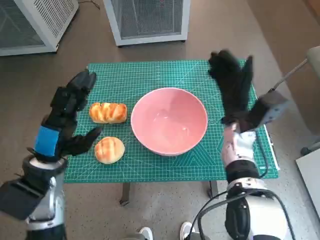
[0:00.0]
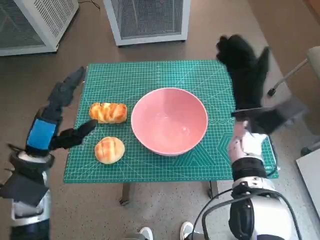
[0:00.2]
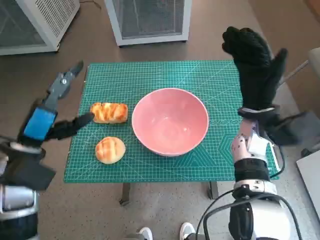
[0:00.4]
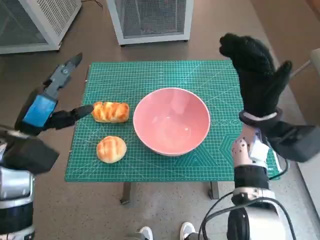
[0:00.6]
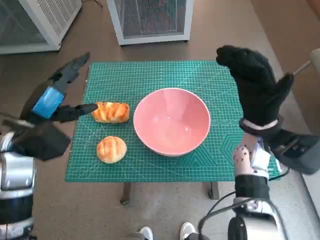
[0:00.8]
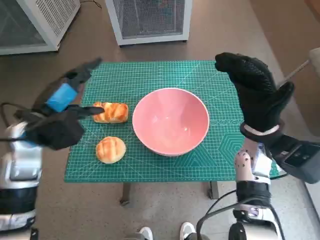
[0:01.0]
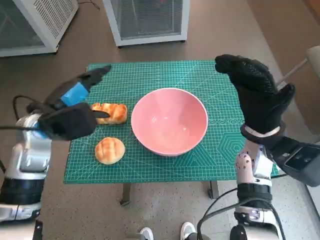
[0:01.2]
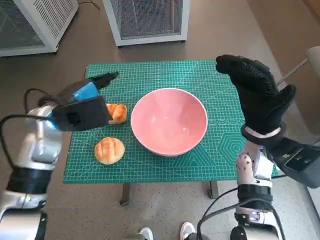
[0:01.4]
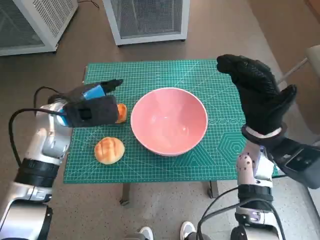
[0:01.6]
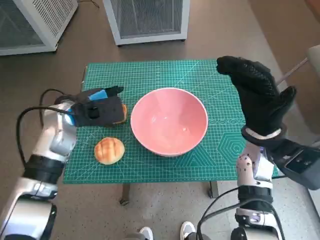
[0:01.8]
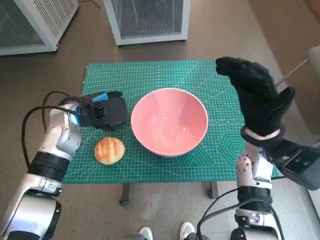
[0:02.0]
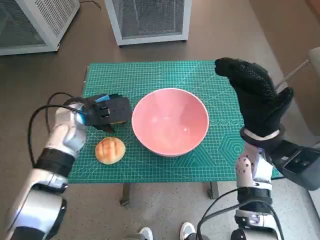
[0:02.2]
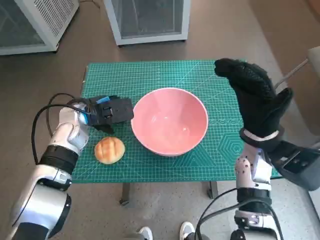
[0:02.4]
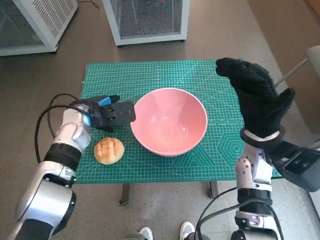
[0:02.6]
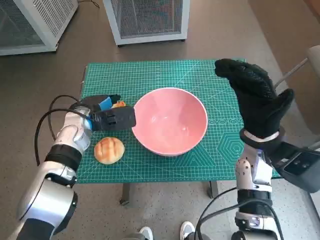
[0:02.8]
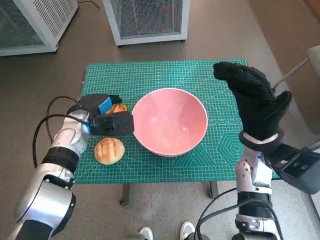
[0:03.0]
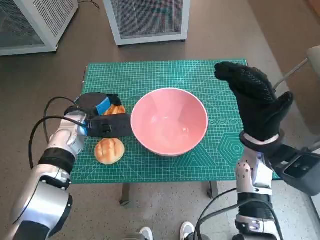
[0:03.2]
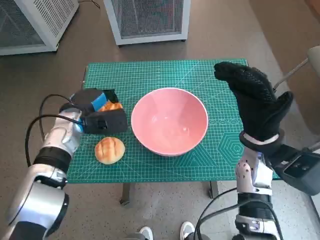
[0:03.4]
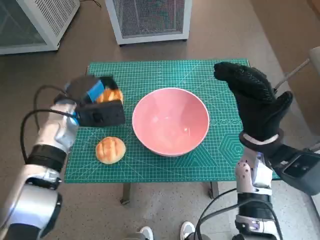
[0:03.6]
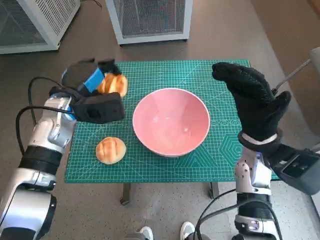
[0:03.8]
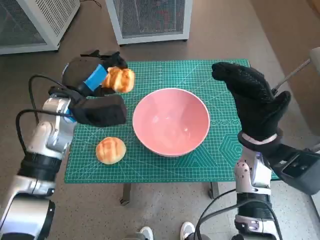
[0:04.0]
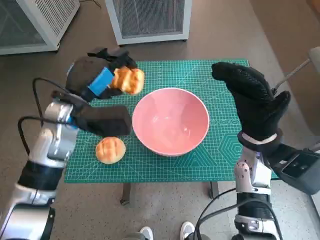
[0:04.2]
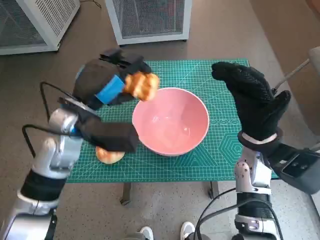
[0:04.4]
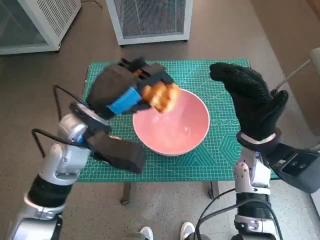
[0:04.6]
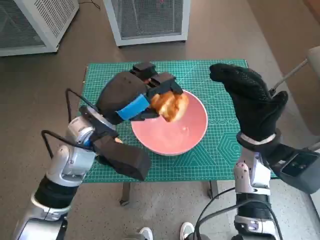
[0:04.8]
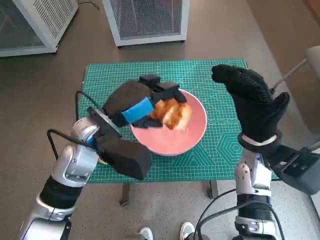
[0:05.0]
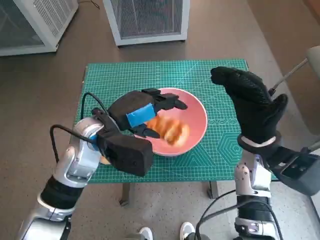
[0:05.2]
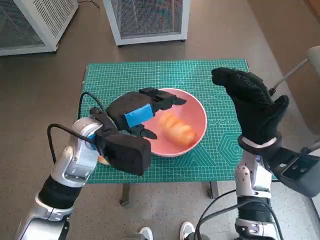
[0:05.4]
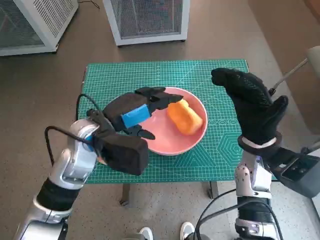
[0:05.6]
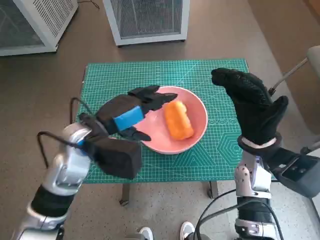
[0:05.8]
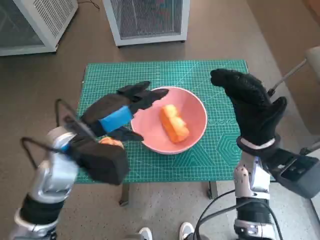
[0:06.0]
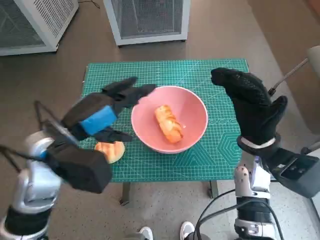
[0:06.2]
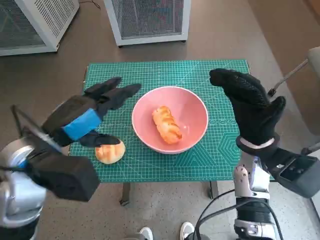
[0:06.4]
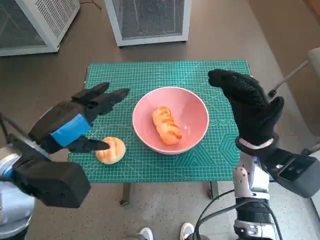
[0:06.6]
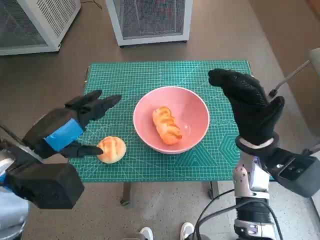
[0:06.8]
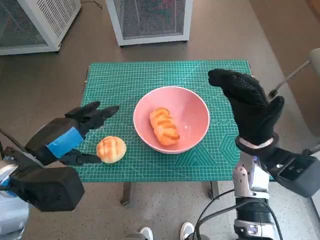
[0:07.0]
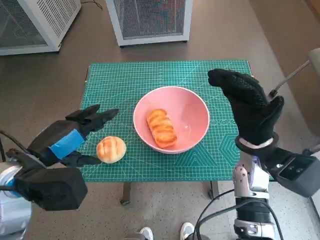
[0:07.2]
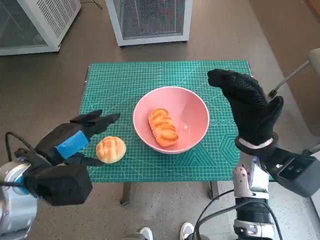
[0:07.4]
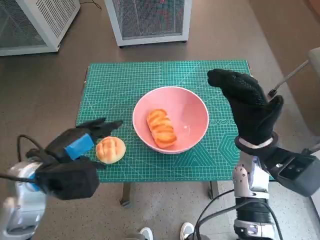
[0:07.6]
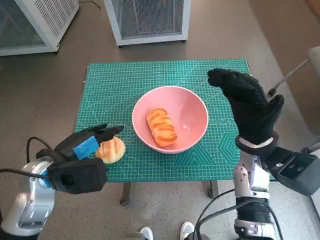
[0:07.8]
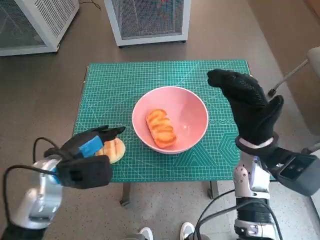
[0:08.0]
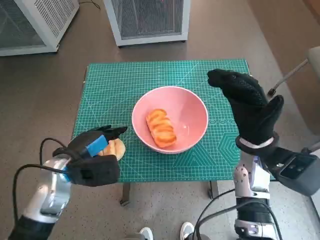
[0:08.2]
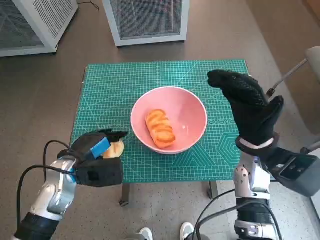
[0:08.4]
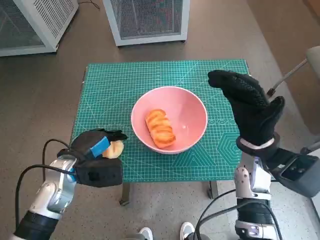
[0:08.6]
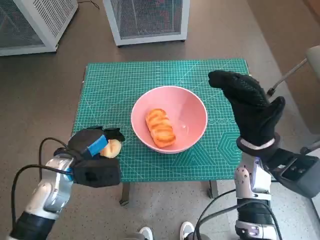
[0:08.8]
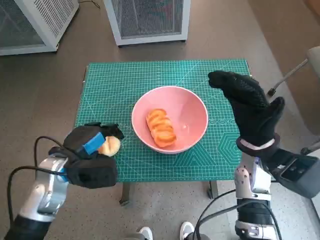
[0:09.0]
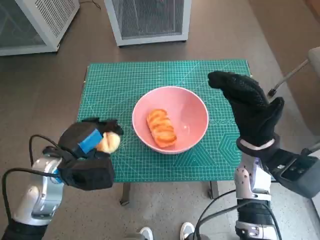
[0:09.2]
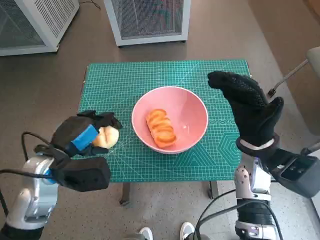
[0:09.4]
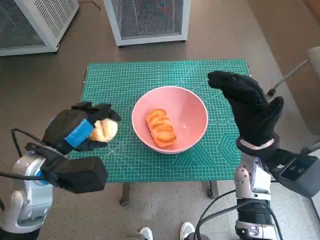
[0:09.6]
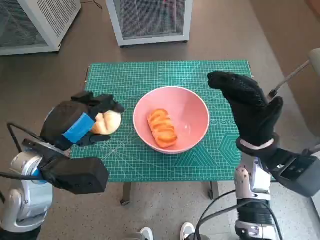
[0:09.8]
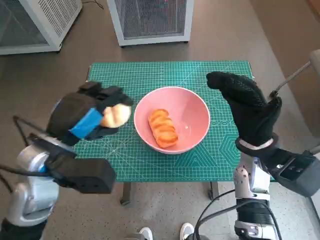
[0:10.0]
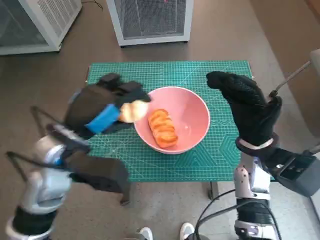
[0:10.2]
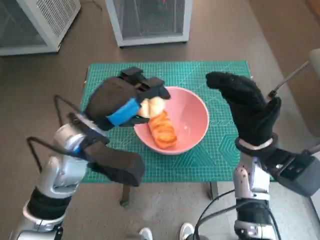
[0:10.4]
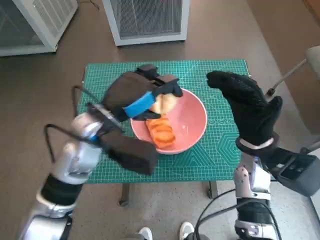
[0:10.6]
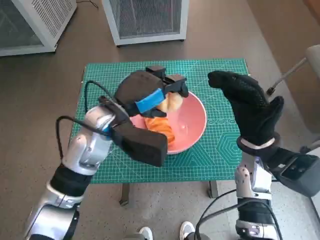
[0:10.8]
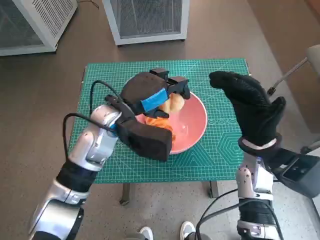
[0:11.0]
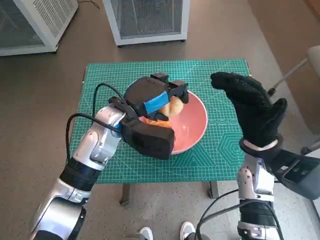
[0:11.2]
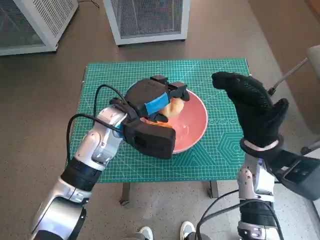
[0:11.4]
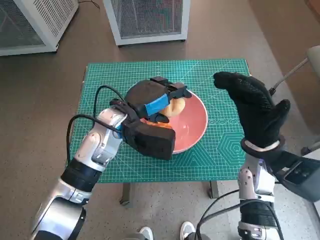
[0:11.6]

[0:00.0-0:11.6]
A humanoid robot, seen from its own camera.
Task of the whole recording: Push the bowl into the center of the table and put the bread into the bowl.
Step, 0:00.0 to 0:03.0: Grasp the long bread with left hand.
Step, 0:03.2 to 0:05.2: Place the long bread in pink bowl with left hand.
Step, 0:05.4 to 0:08.4: Grasp the round bread with left hand.
0:00.0 to 0:01.4: The right hand ends up approximately 5 cm from where it was; the left hand goes approximately 10 cm forward and upward.
0:01.4 to 0:02.8: The left hand shifts roughly 5 cm downward.
0:02.8 to 0:04.4: The left hand is displaced upward and backward by approximately 10 cm.
0:05.8 to 0:07.2: The left hand is displaced to the left and backward by some 10 cm.
0:07.2 to 0:08.8: The left hand shifts roughly 10 cm downward and forward.
0:08.8 to 0:10.2: The left hand is displaced upward by roughly 10 cm.
0:10.2 to 0:11.6: The left hand moves forward and to the right, some 10 cm.

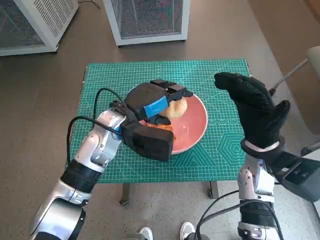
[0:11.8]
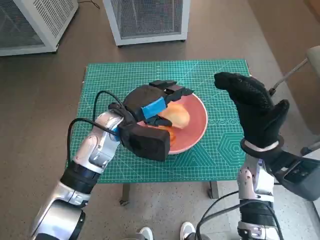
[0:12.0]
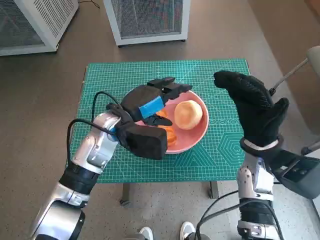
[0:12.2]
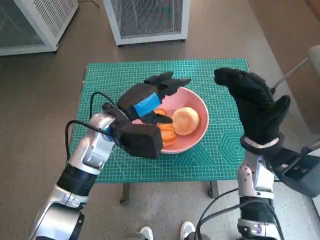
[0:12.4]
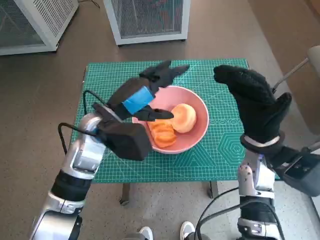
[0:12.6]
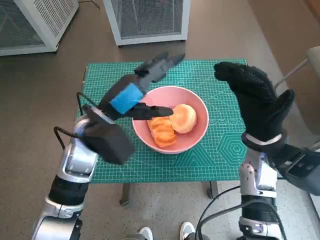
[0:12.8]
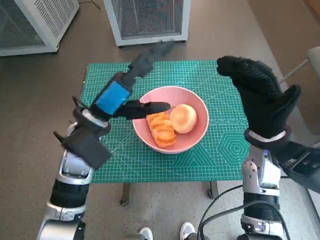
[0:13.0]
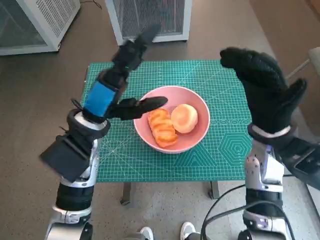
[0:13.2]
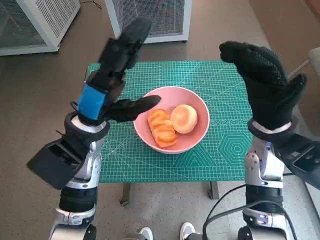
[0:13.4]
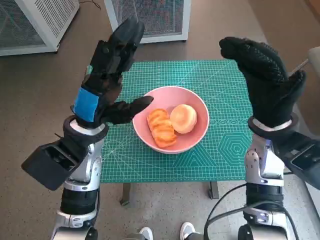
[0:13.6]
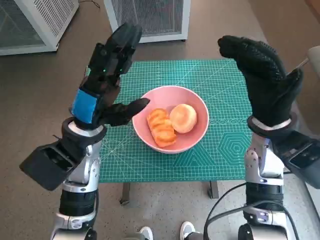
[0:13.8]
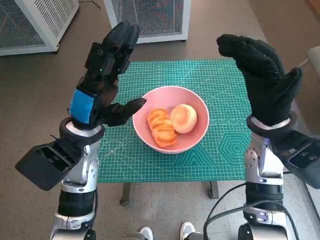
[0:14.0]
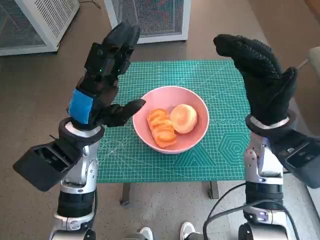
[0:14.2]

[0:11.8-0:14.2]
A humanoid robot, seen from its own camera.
Task of the whole recording: Push the bowl into the center of the table and put the bread into the bowl.
0:11.8 to 0:13.0: The left hand changes place by some 5 cm.
